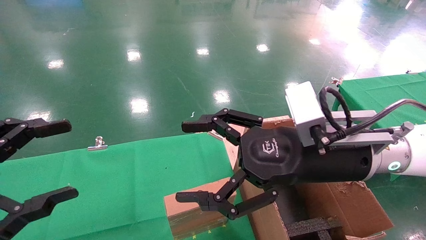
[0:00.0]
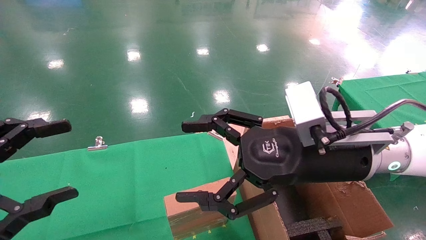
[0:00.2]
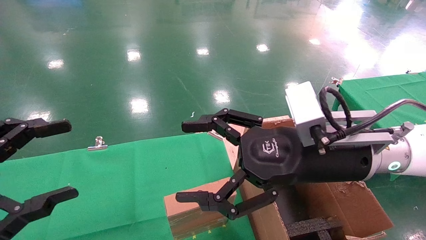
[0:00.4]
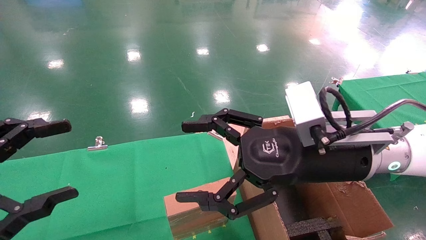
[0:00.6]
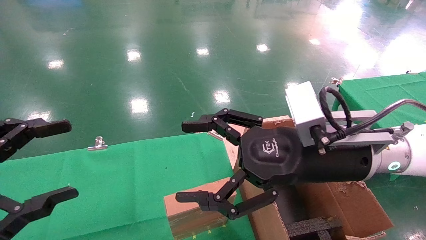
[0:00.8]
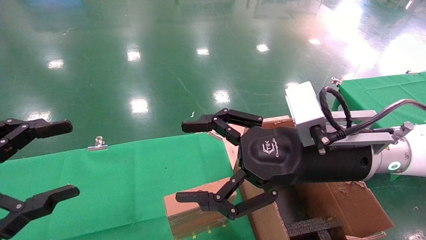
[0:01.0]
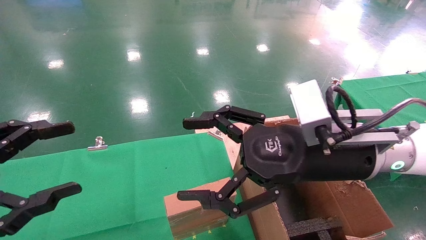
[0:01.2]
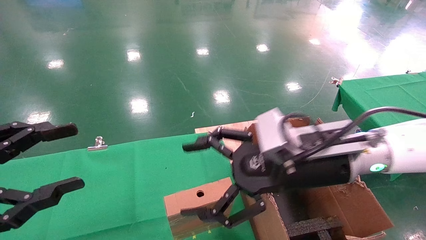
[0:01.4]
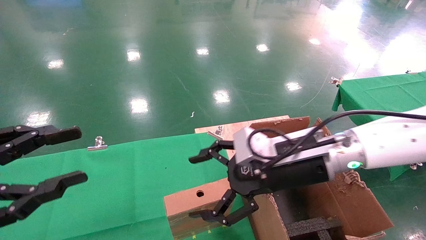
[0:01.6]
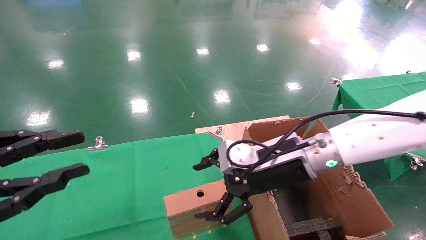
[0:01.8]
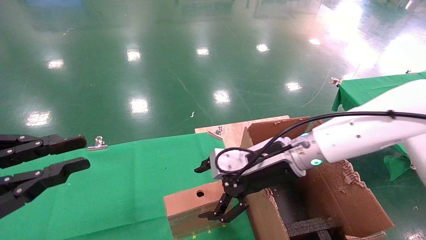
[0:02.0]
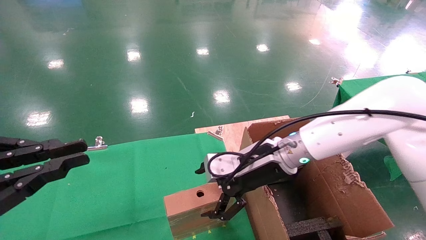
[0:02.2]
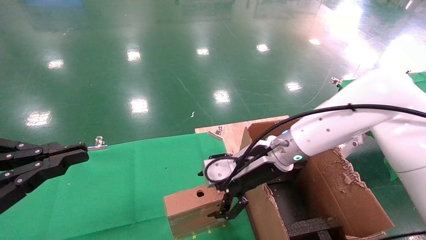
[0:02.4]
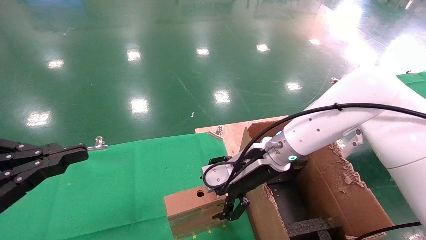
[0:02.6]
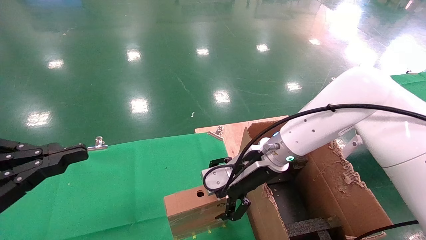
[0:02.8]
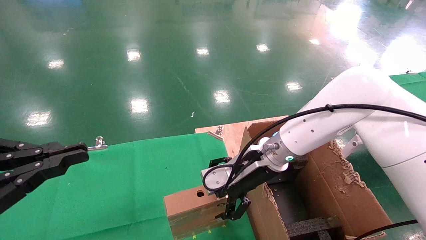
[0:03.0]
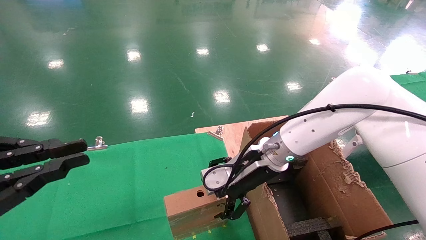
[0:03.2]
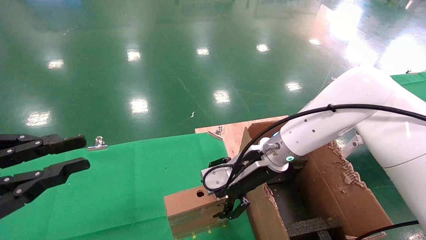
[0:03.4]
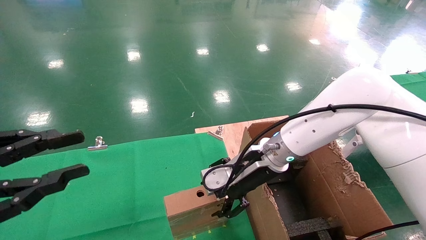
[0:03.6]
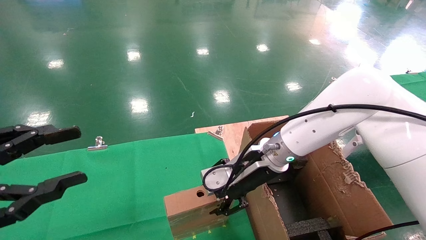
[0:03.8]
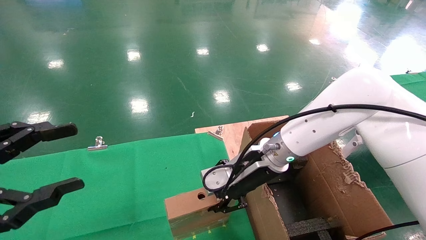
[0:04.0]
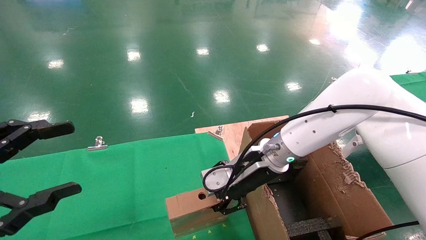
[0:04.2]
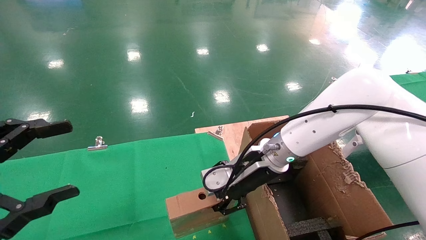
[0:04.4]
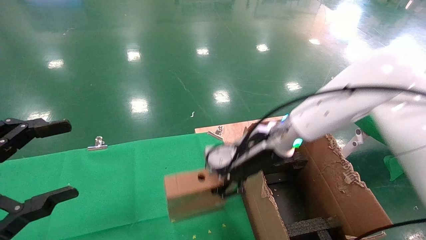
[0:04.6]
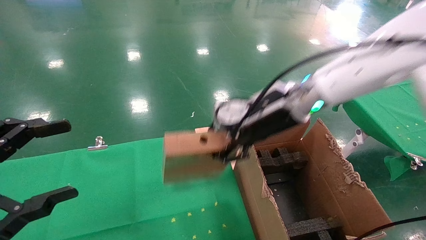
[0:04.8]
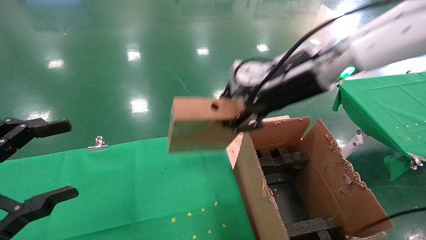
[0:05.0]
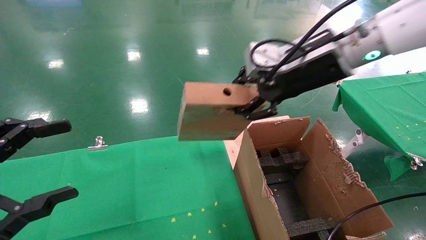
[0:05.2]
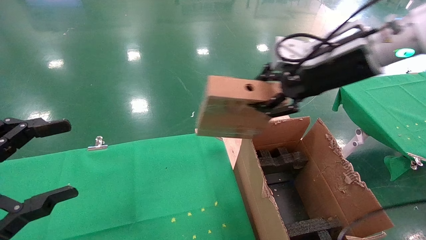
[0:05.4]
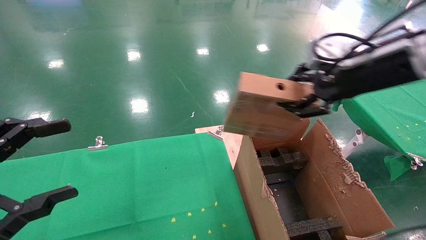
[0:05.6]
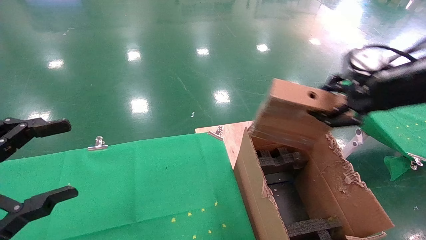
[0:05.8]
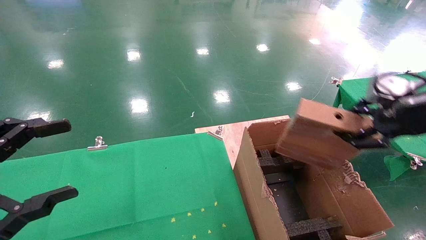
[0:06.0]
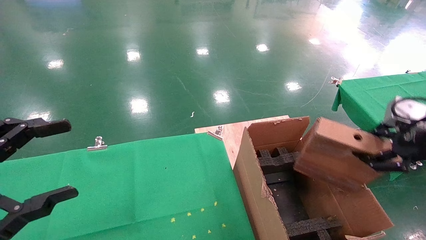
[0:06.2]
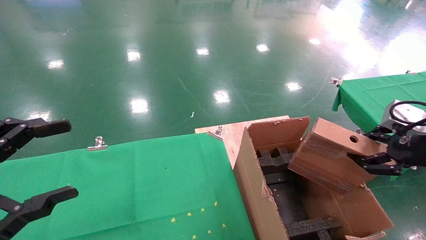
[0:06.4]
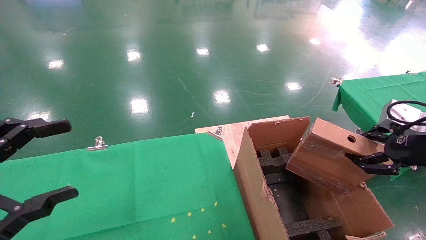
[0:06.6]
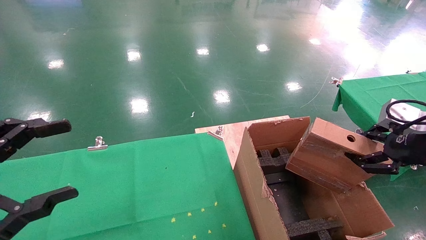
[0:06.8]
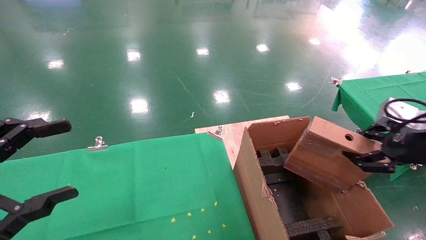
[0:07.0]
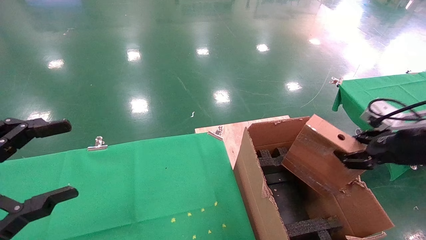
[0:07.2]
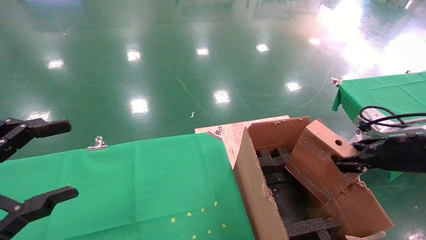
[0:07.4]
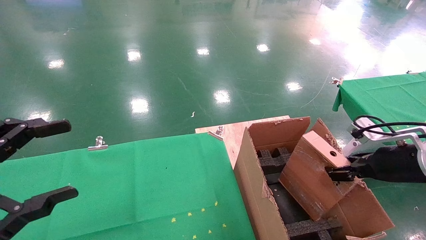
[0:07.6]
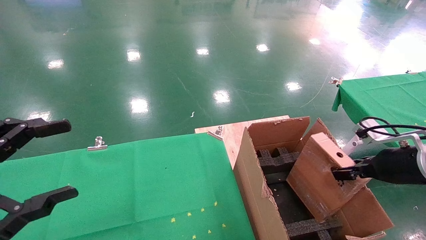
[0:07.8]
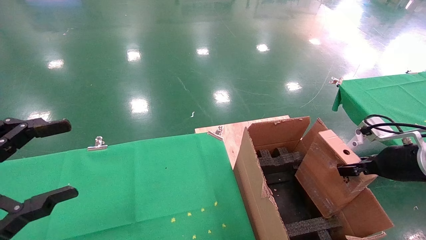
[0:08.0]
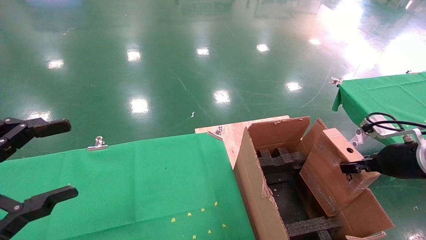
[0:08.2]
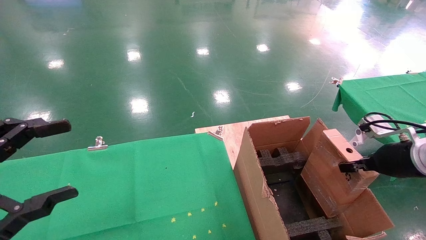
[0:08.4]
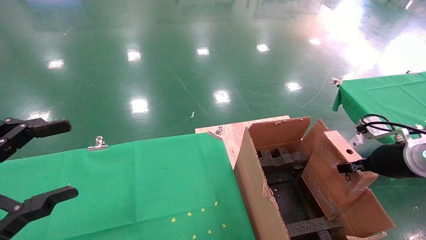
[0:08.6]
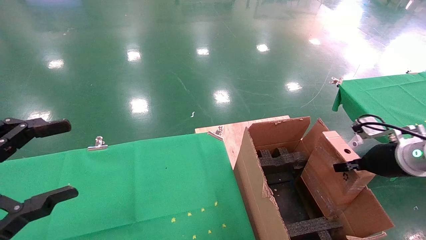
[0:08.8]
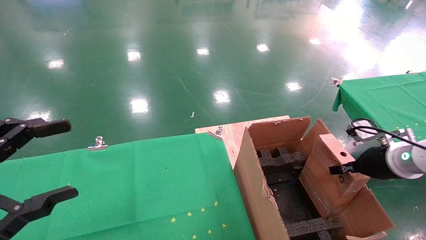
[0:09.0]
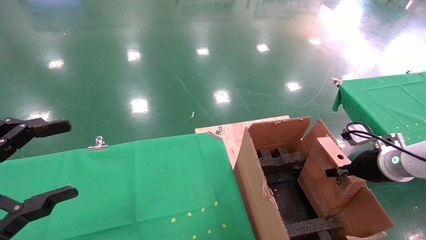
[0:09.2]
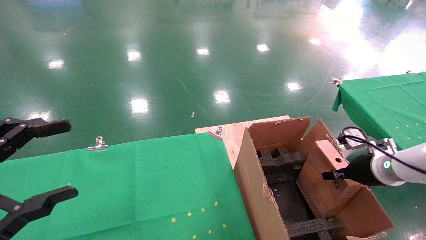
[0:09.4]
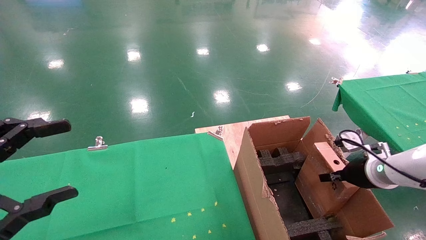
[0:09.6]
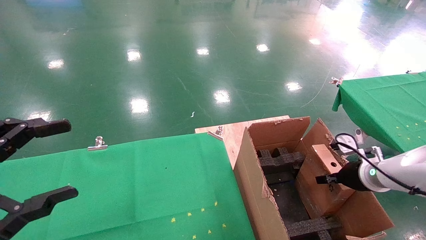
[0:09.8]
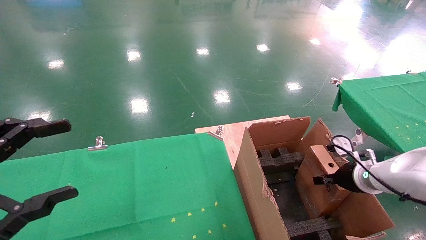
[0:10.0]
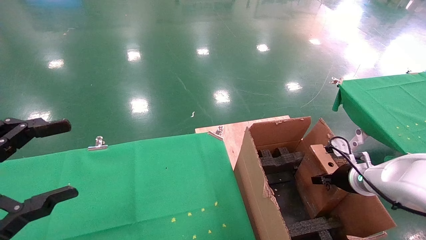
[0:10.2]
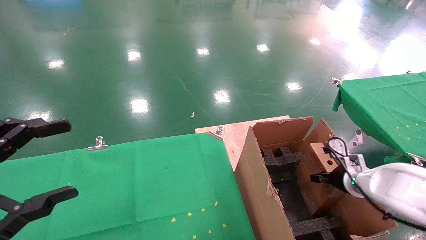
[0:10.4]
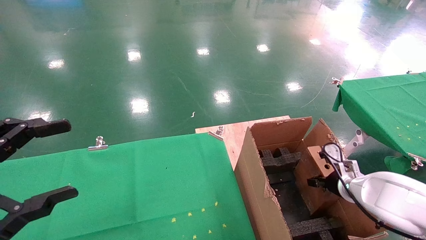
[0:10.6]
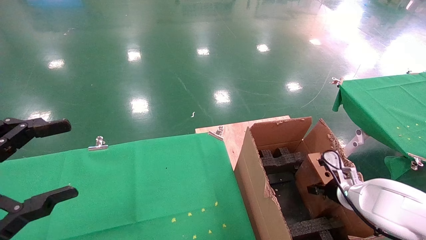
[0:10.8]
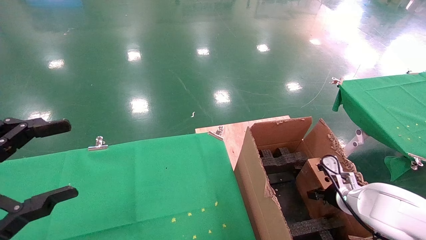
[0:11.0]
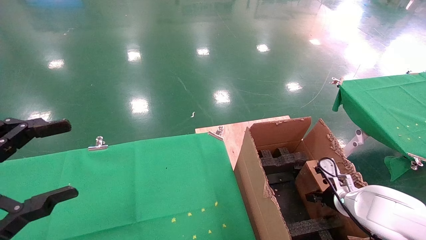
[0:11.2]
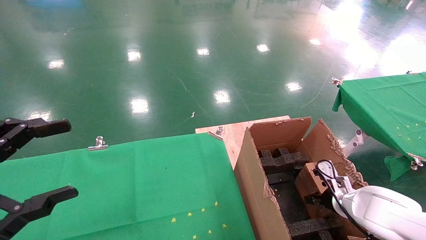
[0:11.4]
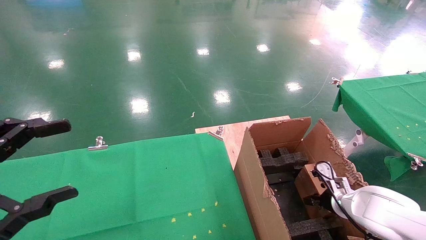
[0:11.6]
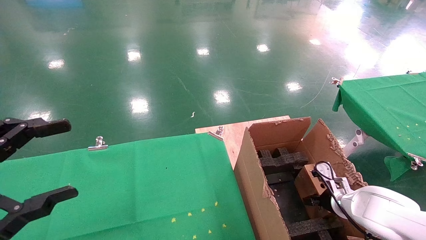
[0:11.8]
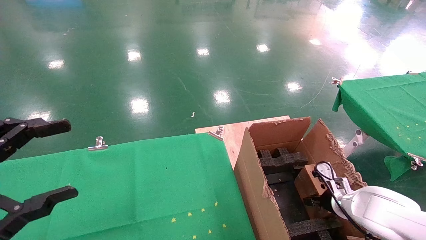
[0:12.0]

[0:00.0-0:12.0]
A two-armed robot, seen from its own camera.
Task of the whole recording: using a robotic arm to pick up a cardboard box and palace it the carton.
Step, 0:01.2 to 0:03.8: Pick up the mouse and the power cord paper box.
0:00.0 to 0:01.6: The right gripper heads forward, covering some 5 cm.
0:01.6 to 0:03.0: The left gripper closes; the right gripper goes about 10 cm forward.
0:03.0 to 0:04.4: The left gripper opens up, while the right gripper closes its fingers.
0:04.4 to 0:06.0: The right gripper travels to the right, backward and upward by approximately 30 cm.
0:06.0 to 0:07.6: The right gripper travels downward by roughly 10 cm.
0:07.6 to 0:09.0: The right gripper moves roughly 5 cm.
0:09.0 to 0:10.4: The right gripper shifts about 10 cm downward and forward.
0:10.4 to 0:12.0: The right gripper is displaced downward by roughly 5 cm.

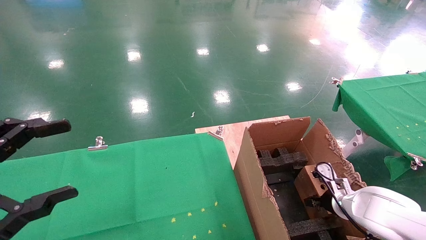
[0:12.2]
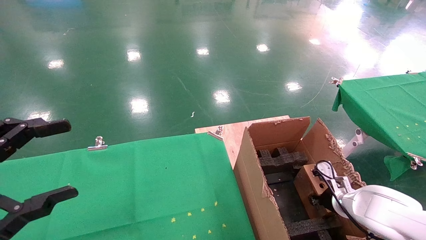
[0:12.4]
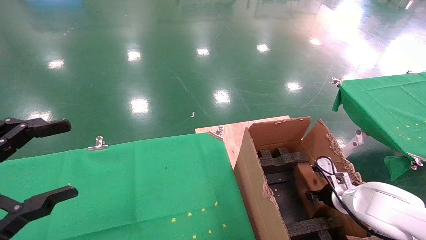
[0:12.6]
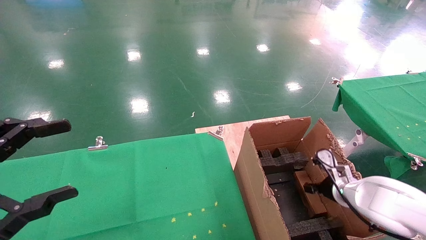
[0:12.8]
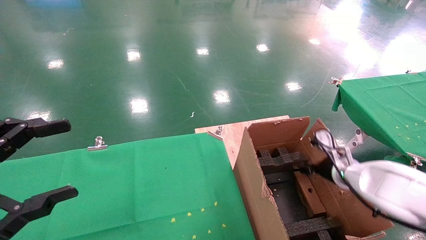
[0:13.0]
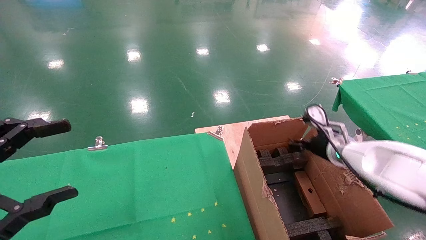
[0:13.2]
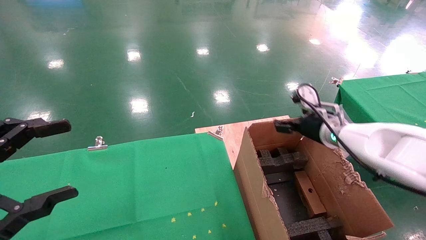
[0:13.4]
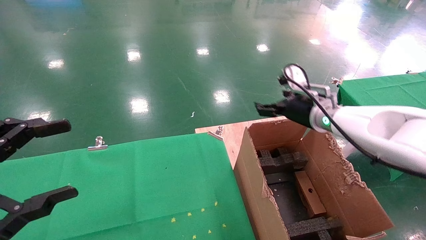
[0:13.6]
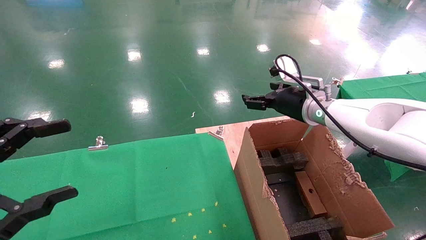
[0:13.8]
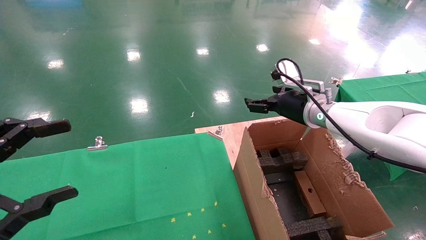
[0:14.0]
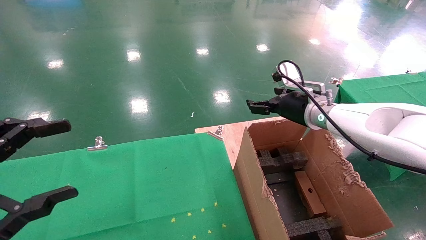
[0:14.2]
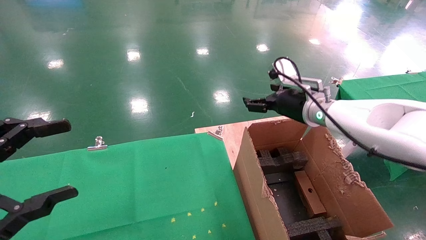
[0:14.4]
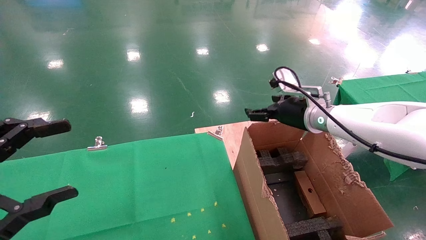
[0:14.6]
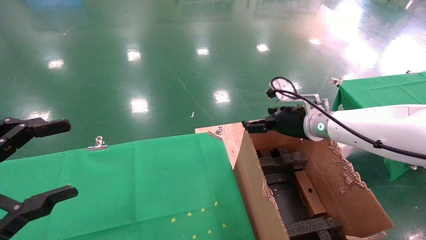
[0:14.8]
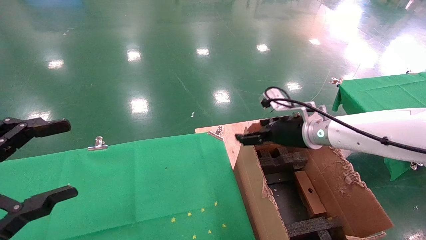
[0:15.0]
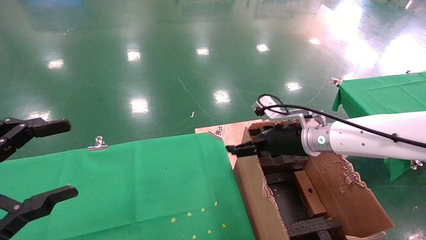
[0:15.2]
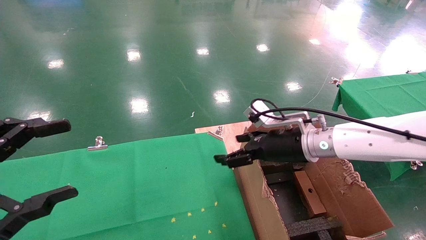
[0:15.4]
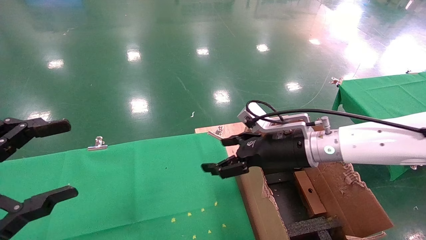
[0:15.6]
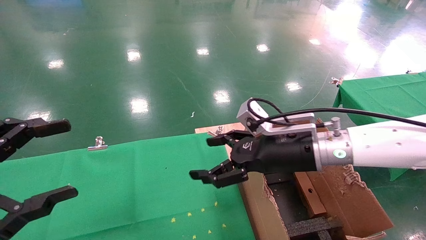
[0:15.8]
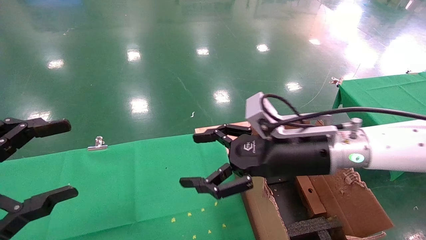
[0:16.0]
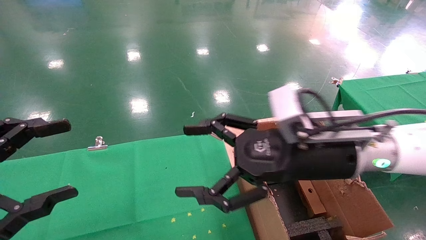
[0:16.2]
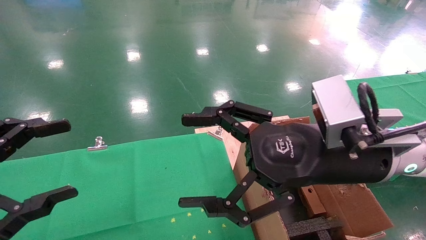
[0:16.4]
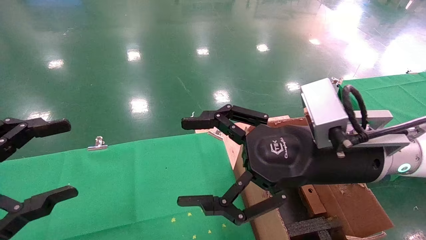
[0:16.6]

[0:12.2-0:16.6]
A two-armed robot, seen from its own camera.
Task of the whole recording: using a robotic arm to pick up a cardboard box and palace it the carton.
0:12.2 to 0:13.6: The right gripper goes approximately 20 cm upward, and opens.
0:13.6 to 0:15.2: The right gripper changes place by some 5 cm.
0:15.2 to 0:16.6: The right gripper goes some 15 cm backward and upward.
